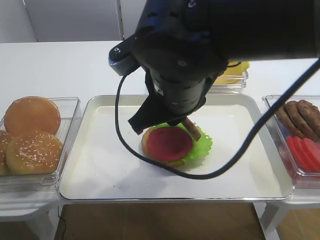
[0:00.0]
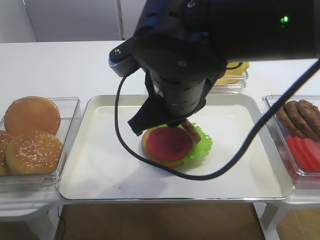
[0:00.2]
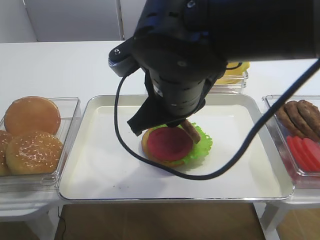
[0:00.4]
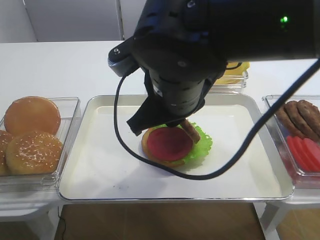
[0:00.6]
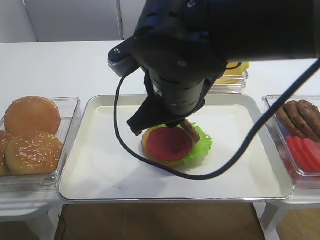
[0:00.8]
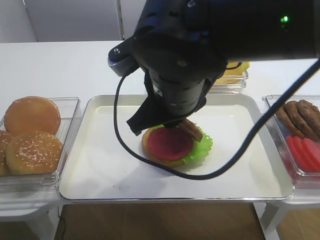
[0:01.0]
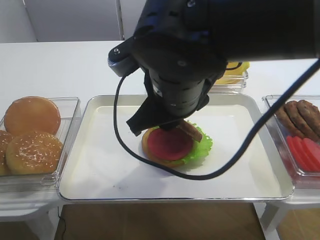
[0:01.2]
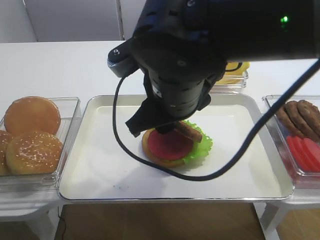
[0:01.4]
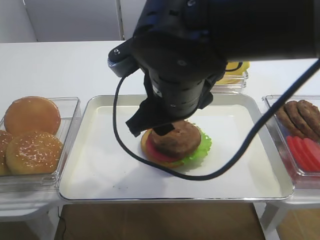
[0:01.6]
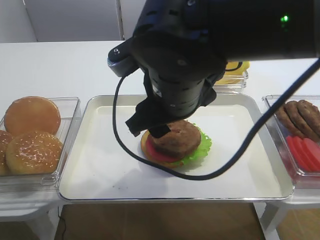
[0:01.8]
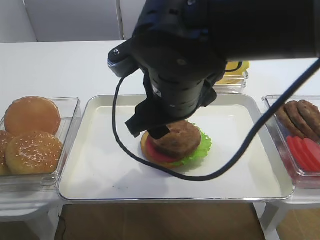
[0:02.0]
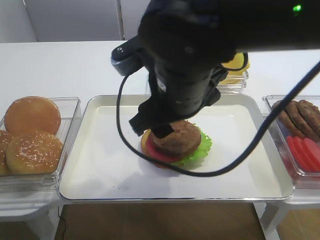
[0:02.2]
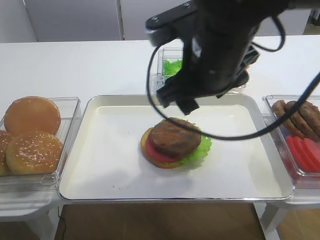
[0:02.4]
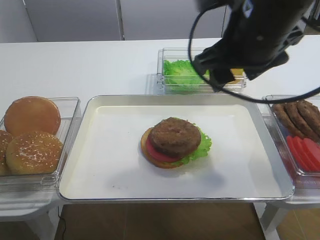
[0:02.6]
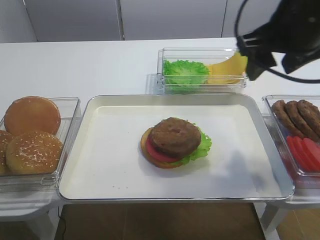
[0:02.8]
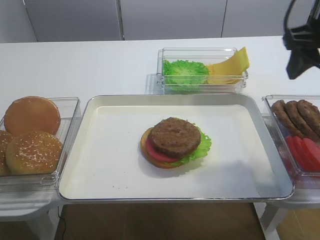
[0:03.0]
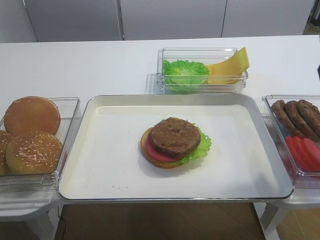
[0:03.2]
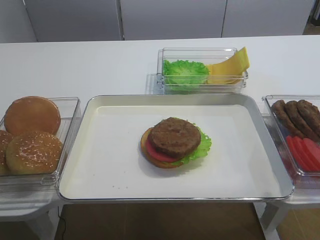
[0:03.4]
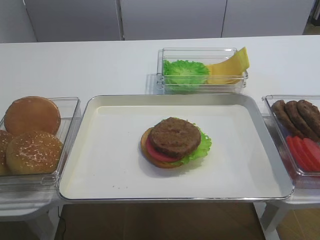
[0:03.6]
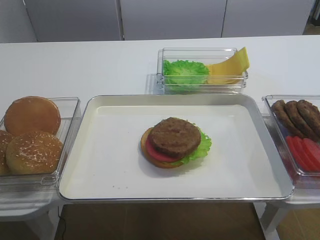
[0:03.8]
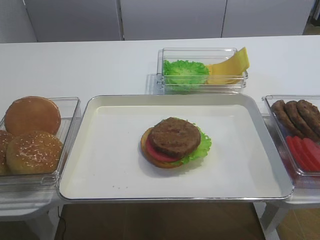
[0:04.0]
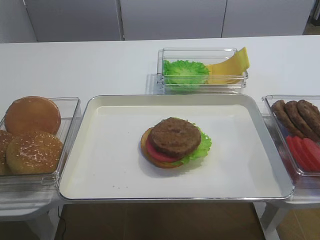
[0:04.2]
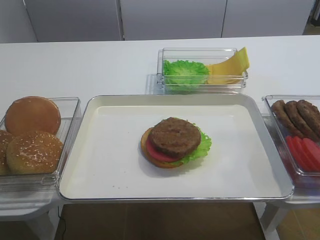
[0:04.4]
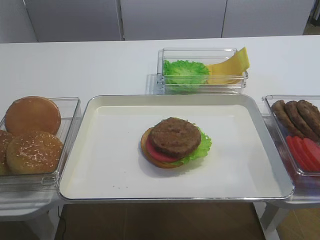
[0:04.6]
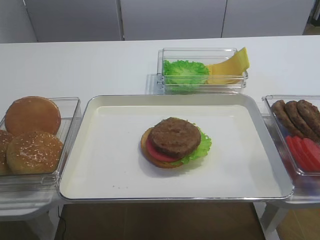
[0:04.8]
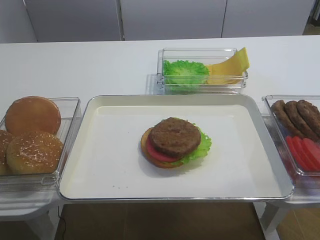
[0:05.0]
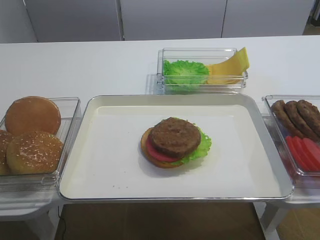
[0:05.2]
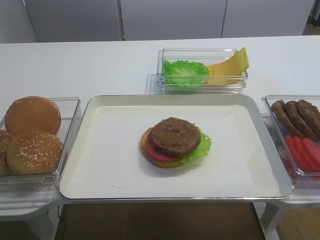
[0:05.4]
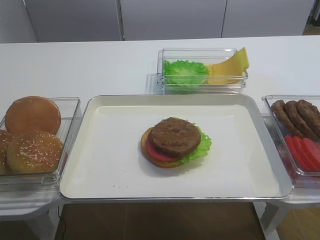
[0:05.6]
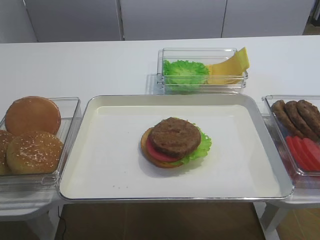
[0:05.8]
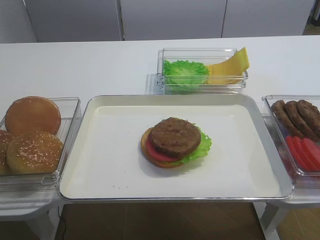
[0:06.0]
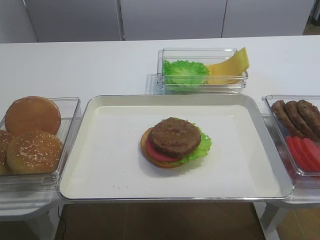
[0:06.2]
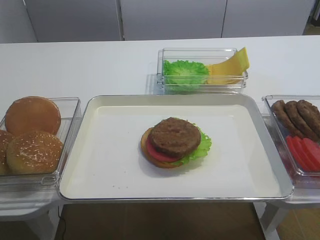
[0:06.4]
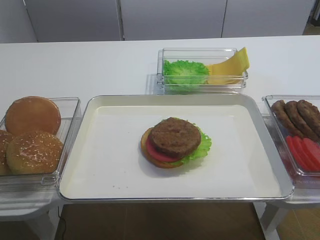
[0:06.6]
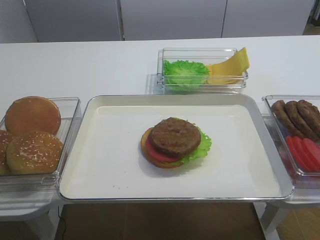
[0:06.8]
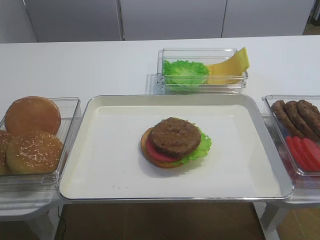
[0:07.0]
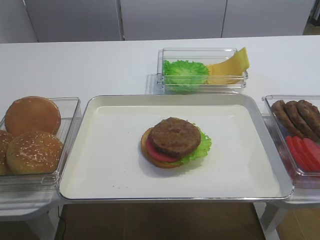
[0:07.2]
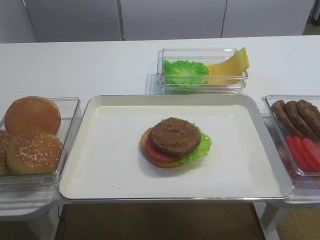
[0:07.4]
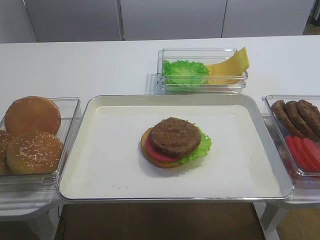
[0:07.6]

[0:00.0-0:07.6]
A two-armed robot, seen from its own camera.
0:00.0 to 0:01.6: The right gripper opens.
0:01.6 to 0:03.0: The right gripper shifts some 20 cm to the right.
0:03.0 to 0:04.6: The right gripper moves backward, about 25 cm.
0:04.6 to 0:06.0: The right gripper shifts approximately 10 cm downward and backward.

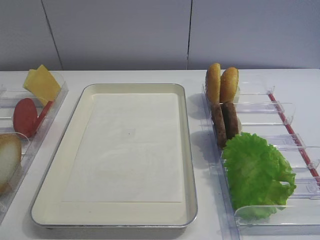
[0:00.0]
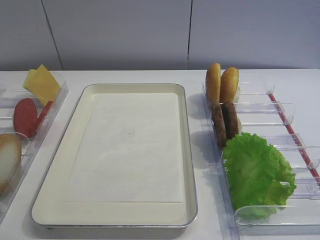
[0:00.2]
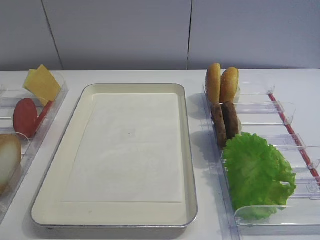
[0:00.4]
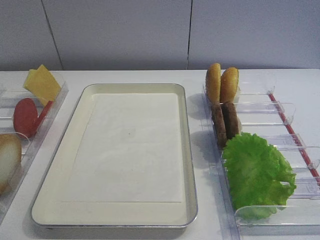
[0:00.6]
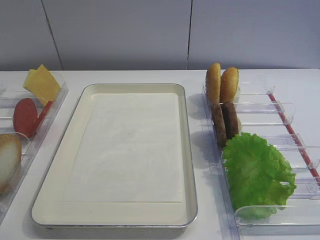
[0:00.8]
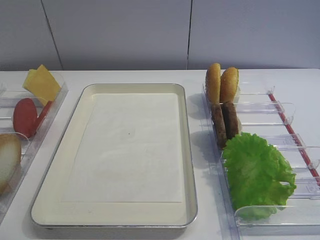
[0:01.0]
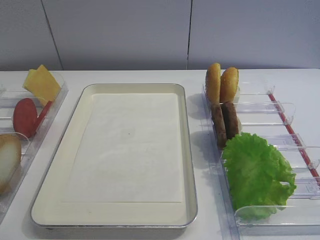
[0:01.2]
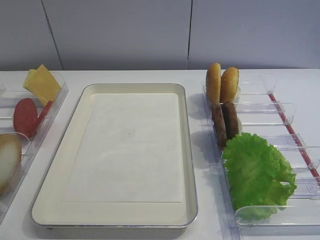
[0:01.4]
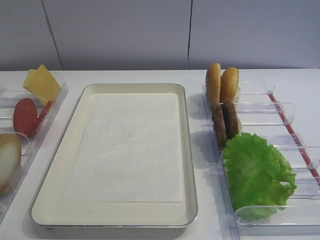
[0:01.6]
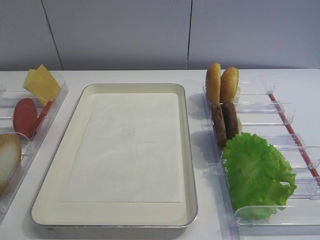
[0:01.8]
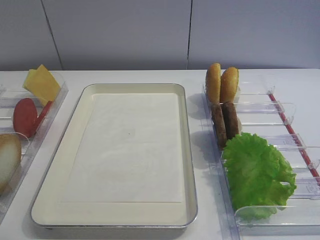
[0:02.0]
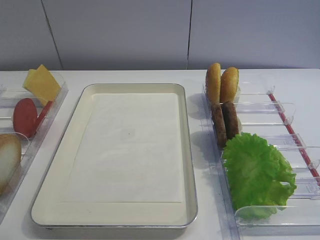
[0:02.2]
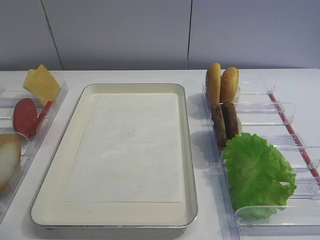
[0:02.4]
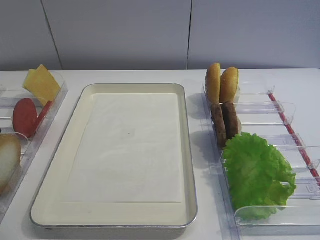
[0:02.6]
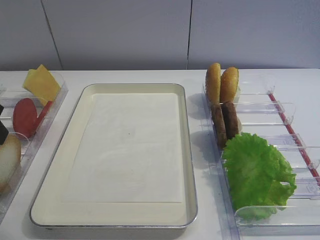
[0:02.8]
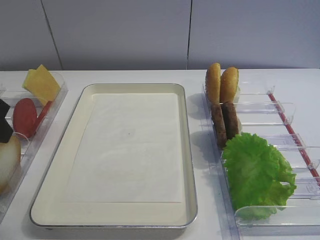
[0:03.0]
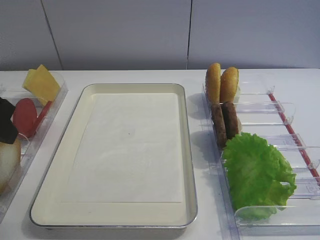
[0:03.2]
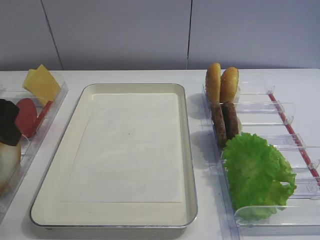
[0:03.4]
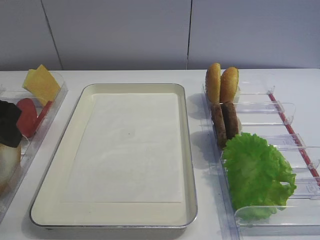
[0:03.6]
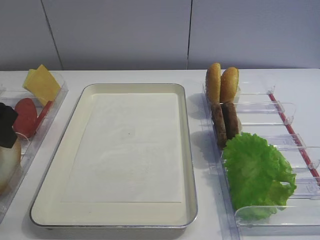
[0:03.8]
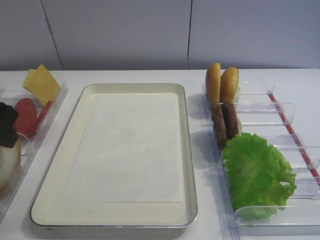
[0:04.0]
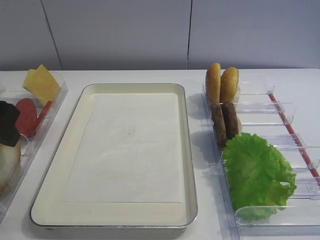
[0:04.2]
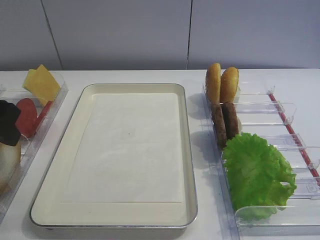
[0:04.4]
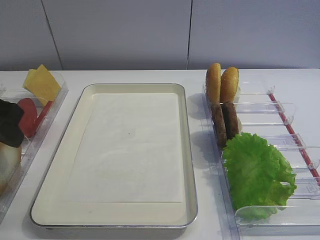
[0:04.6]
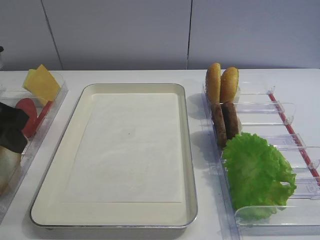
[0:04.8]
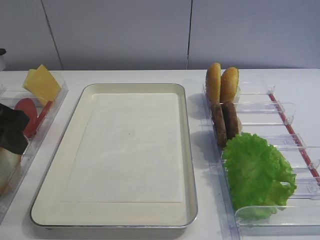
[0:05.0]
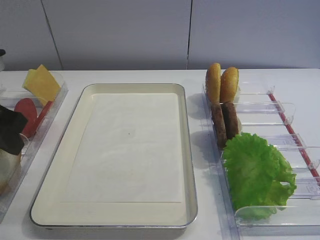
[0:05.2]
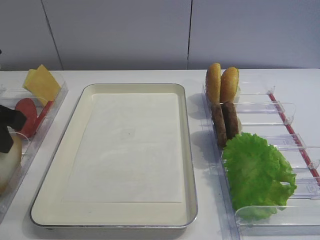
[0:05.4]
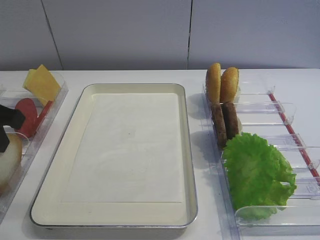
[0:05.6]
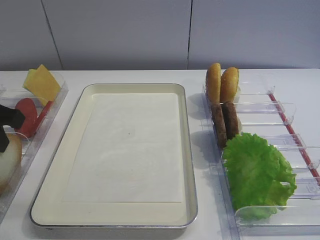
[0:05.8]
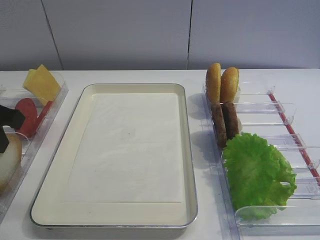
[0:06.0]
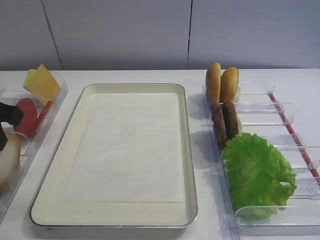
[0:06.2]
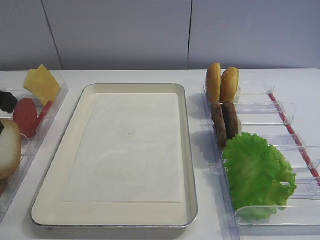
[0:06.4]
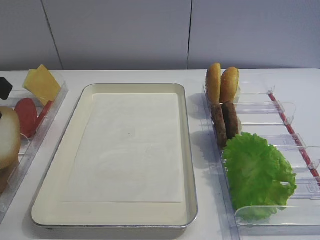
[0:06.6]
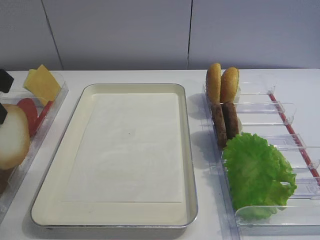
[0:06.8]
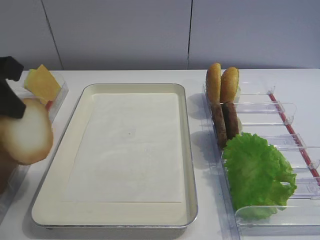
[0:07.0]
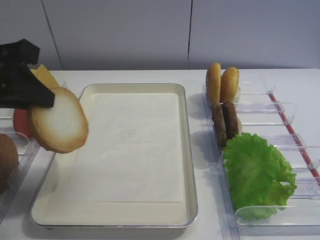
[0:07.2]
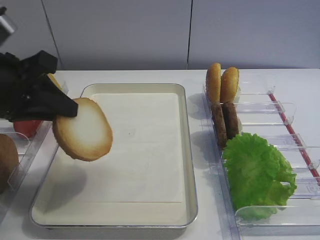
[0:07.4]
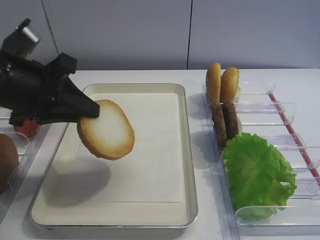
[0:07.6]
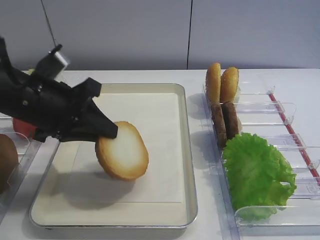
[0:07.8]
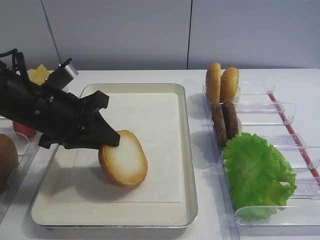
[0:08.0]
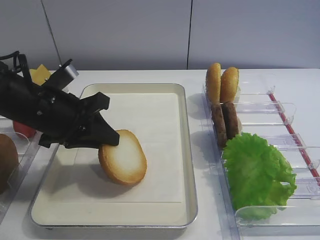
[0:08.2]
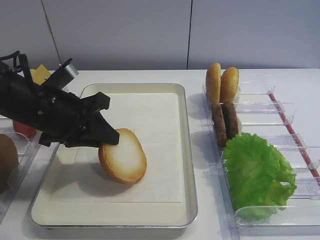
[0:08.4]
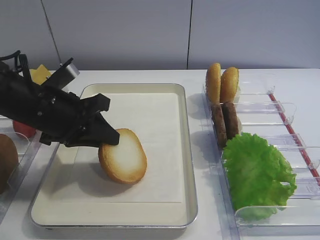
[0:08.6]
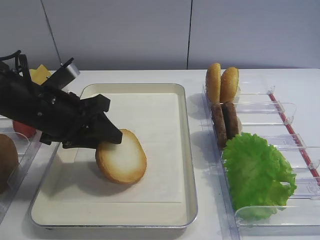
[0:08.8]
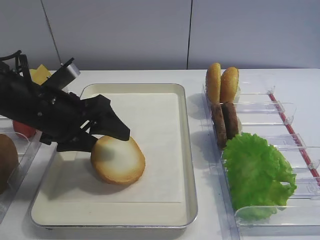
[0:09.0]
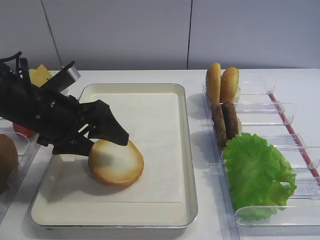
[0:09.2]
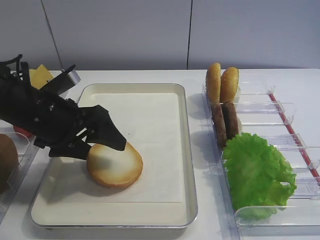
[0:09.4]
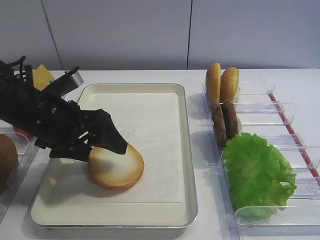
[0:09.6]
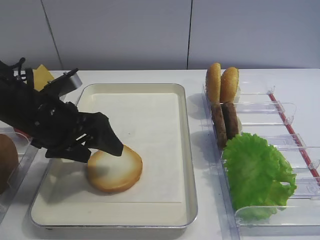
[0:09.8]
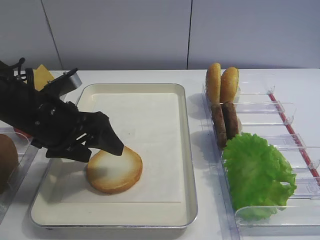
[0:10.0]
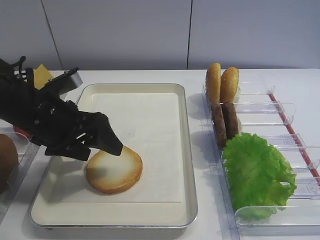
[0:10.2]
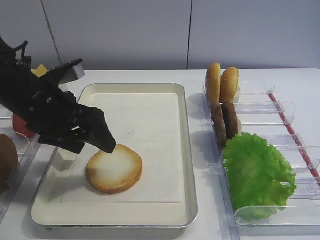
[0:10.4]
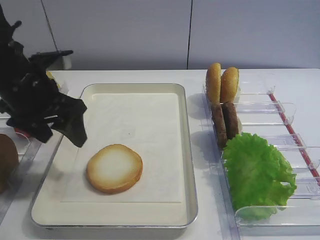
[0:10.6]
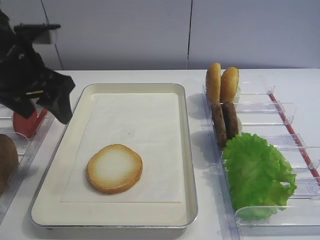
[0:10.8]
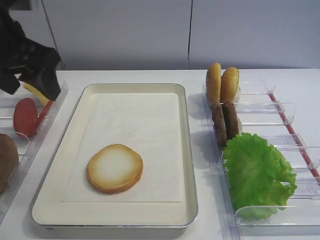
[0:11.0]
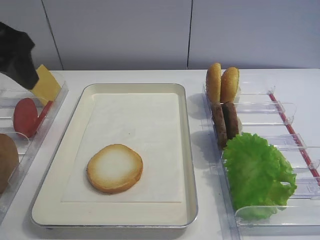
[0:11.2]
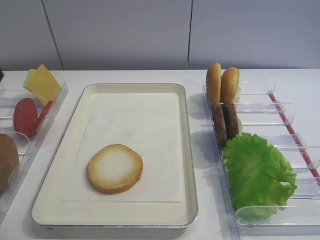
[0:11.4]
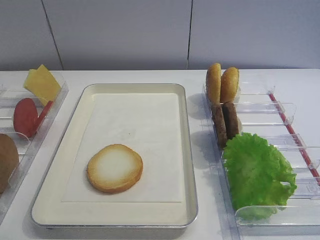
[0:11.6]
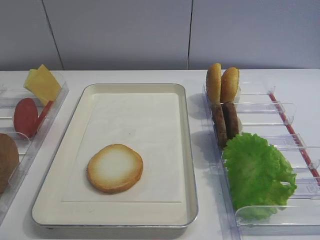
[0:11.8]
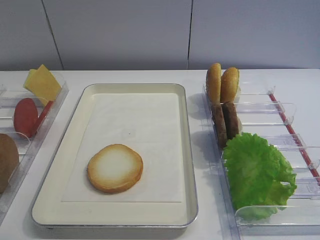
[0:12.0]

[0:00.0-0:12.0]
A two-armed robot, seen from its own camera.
Step, 0:00.0 to 0:06.6: Pick up the bread slice with the left gripper.
Step, 0:07.0 to 0:10.4: Place the bread slice on the tray with the left gripper.
0:04.4 to 0:06.0: The left gripper closes its fingers.
0:06.0 to 0:07.6: The left gripper moves to the right, roughly 5 cm.
0:07.6 to 0:09.0: The left gripper travels downward by about 5 cm, and opens its fingers.
0:09.0 to 0:10.4: The grippers move only a little.
0:10.4 to 0:12.0: The left gripper goes approximately 30 cm backward, upward and to the left.

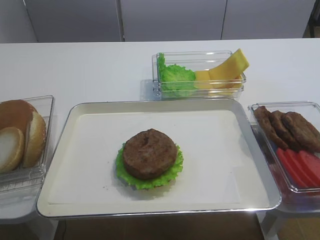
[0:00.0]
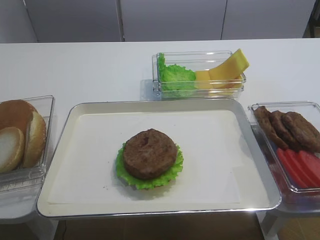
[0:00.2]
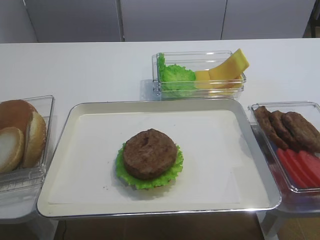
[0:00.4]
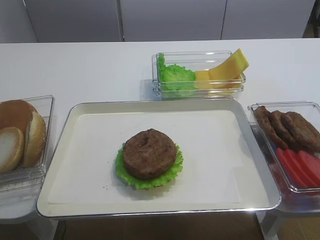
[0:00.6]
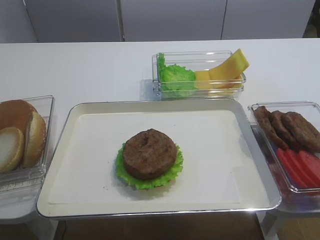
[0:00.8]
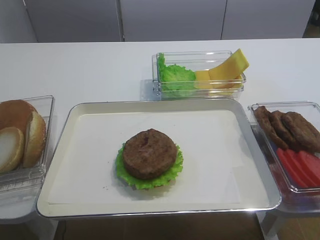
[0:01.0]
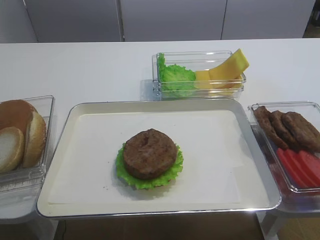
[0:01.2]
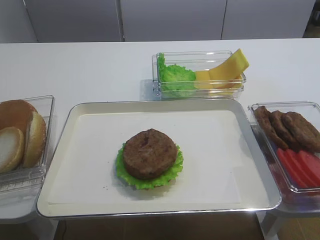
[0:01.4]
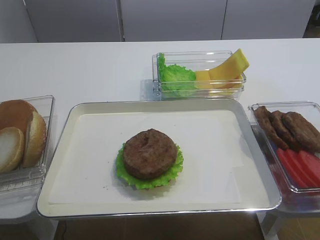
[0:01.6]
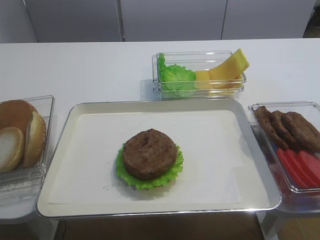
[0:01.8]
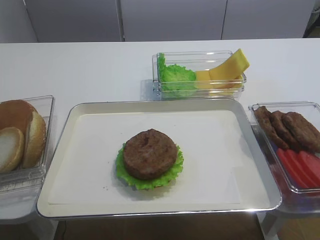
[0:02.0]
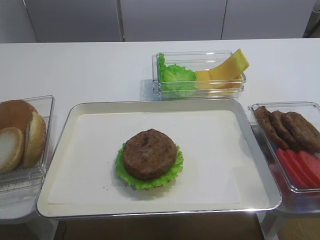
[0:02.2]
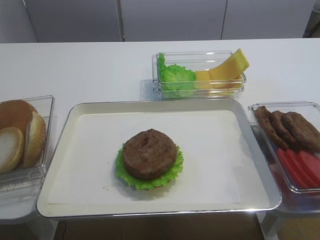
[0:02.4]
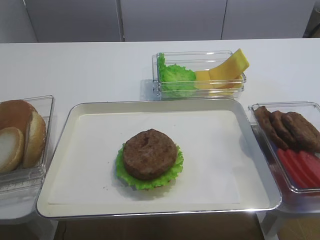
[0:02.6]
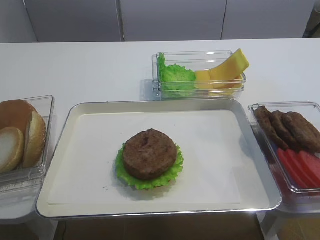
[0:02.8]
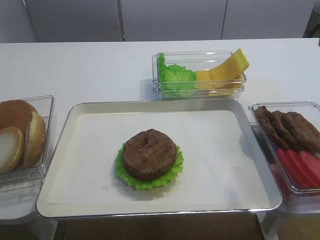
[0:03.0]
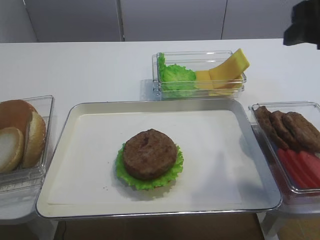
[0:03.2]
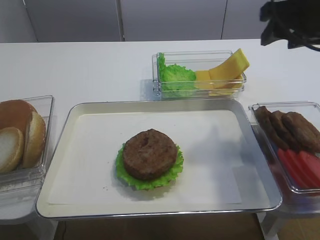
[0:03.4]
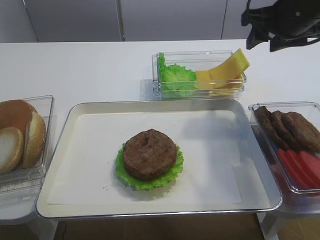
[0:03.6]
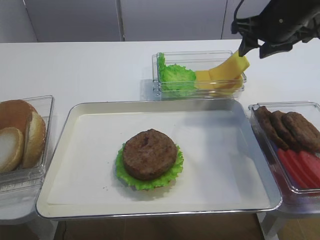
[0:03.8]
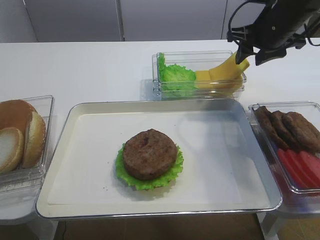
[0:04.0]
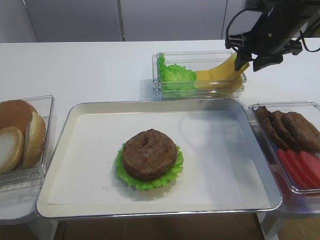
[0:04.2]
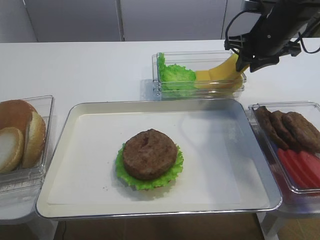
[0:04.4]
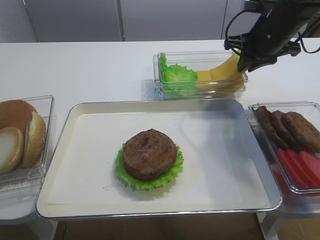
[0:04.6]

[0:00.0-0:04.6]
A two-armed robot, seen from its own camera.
0:01.6 to 0:03.0: The right gripper shifts roughly 20 cm forward and upward, and opens up.
0:03.0 to 0:04.6: The right gripper travels forward and downward by some 25 cm, and closes up.
